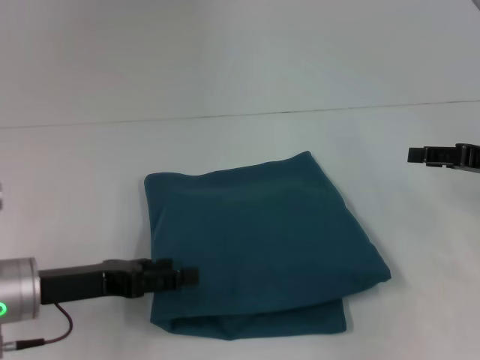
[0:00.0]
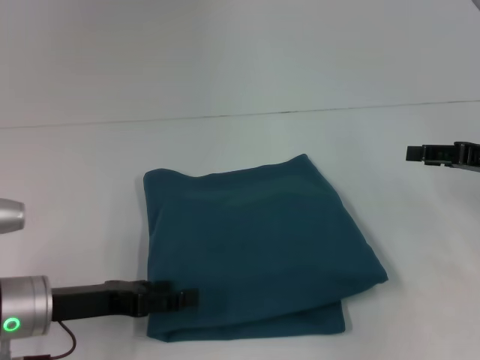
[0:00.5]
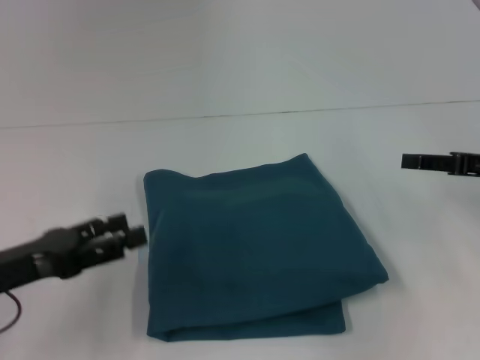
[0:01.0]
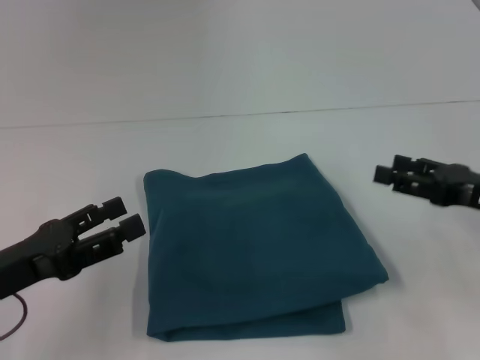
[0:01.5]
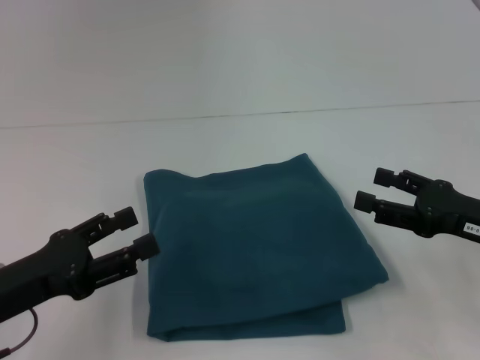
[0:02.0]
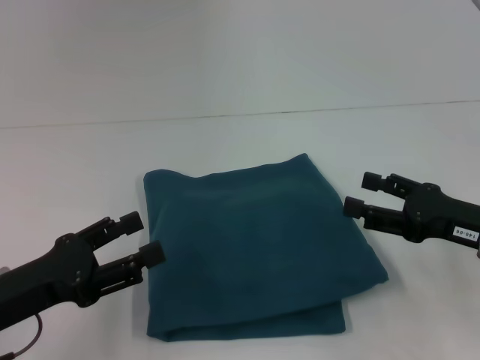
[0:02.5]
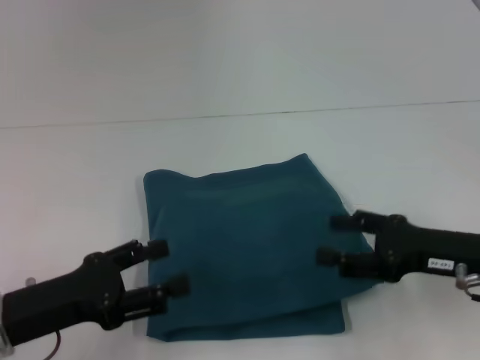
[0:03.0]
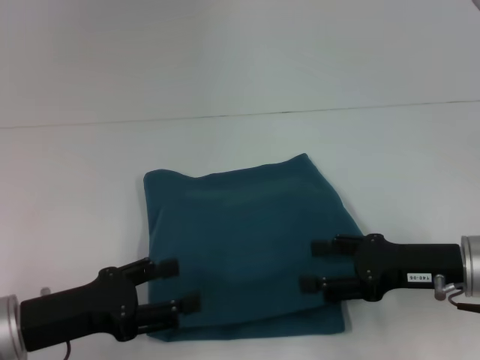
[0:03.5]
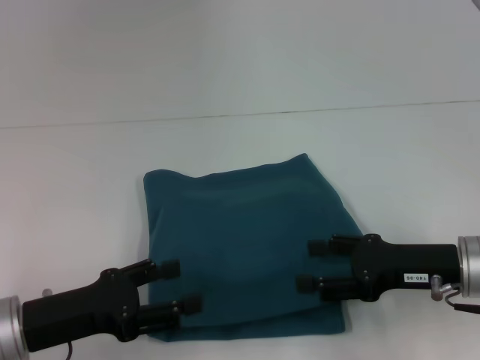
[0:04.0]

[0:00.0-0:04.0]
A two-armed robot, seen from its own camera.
0:00.0 to 0:02.0: The right gripper is displaced backward and to the left by some 10 cm. The left gripper changes place by roughly 5 cm.
0:02.0 to 0:04.0: The right gripper shifts about 5 cm to the left.

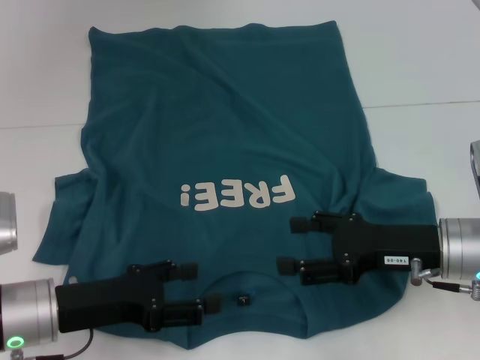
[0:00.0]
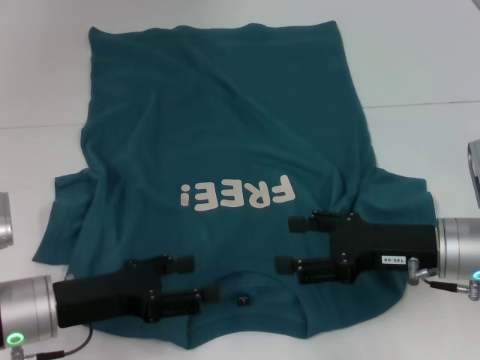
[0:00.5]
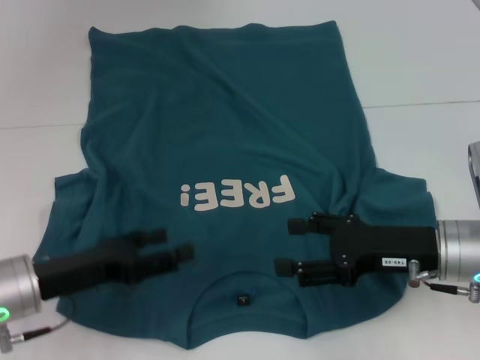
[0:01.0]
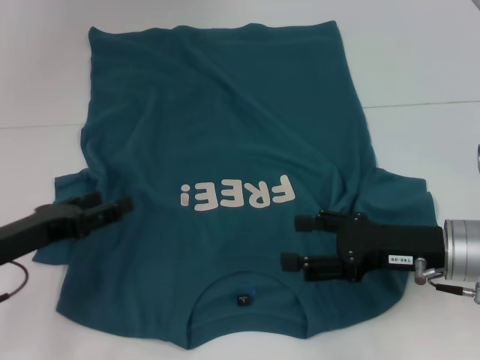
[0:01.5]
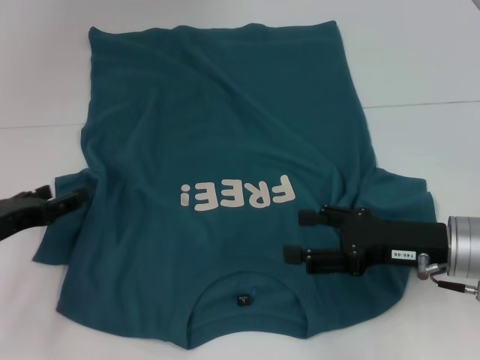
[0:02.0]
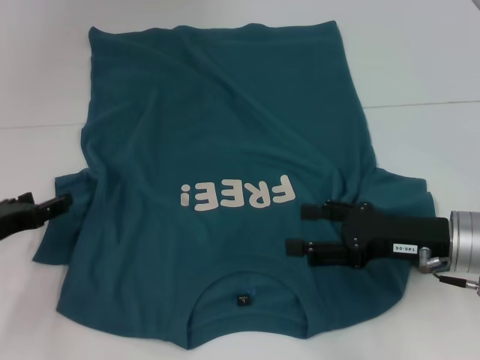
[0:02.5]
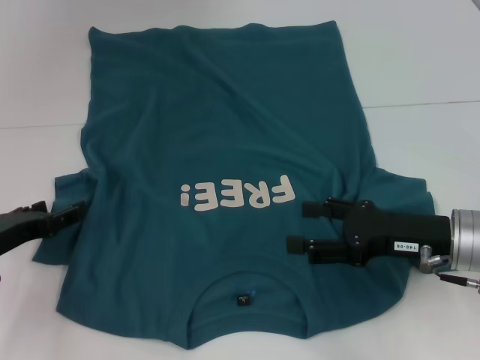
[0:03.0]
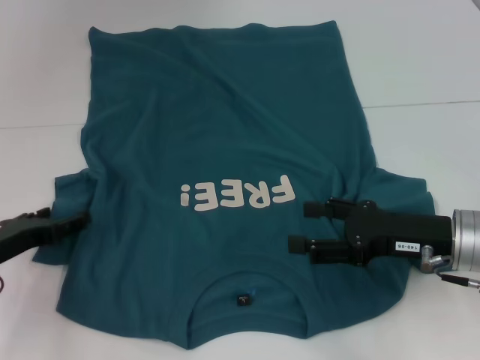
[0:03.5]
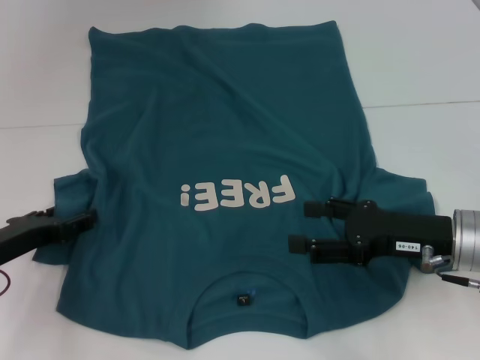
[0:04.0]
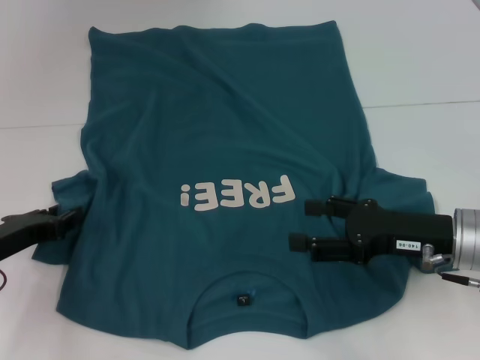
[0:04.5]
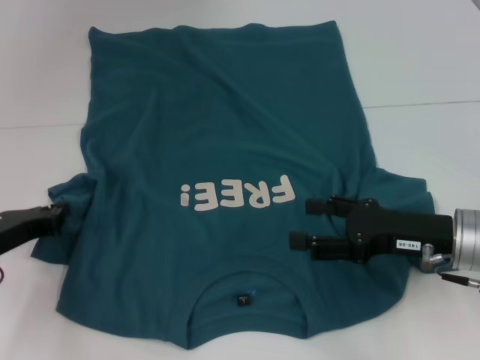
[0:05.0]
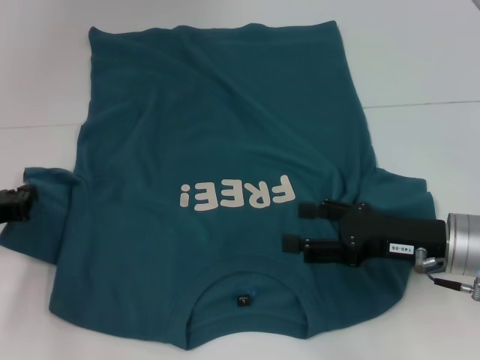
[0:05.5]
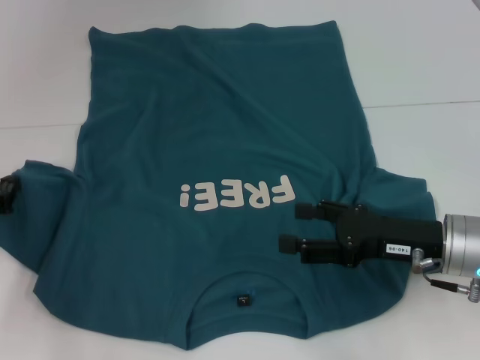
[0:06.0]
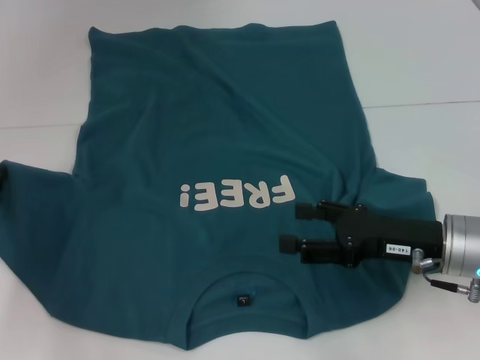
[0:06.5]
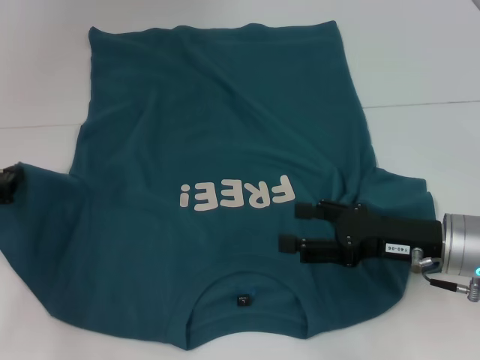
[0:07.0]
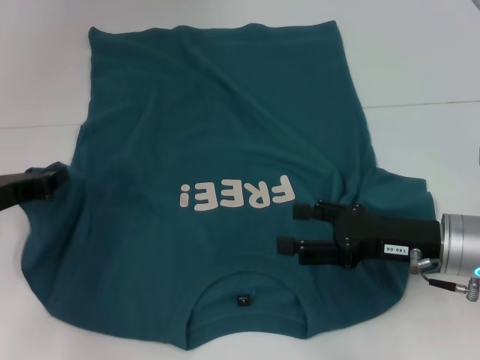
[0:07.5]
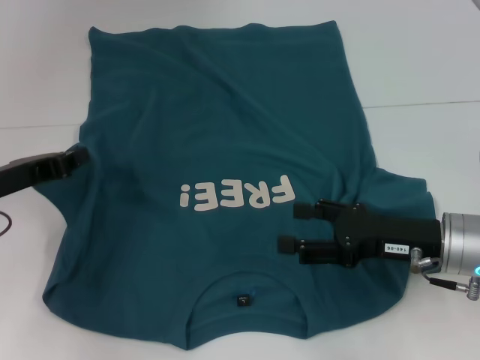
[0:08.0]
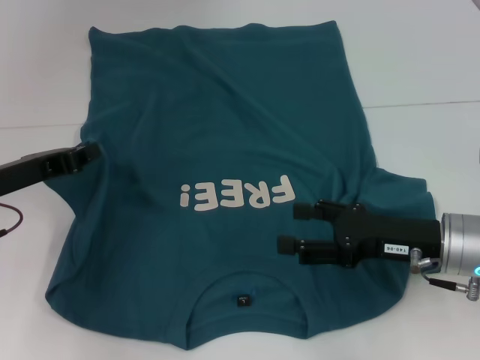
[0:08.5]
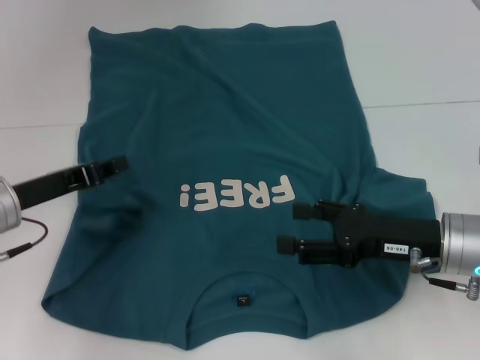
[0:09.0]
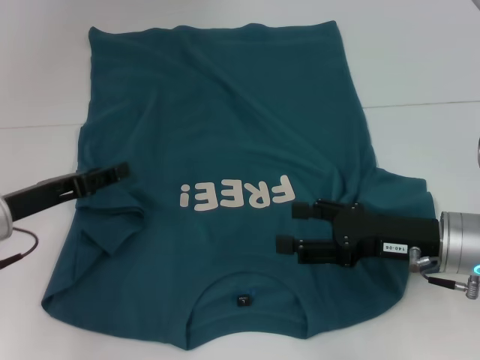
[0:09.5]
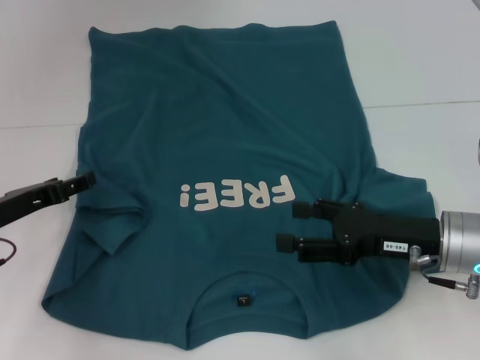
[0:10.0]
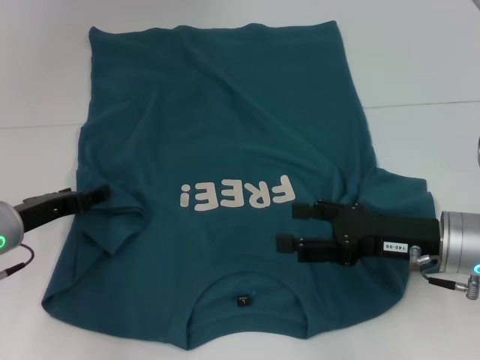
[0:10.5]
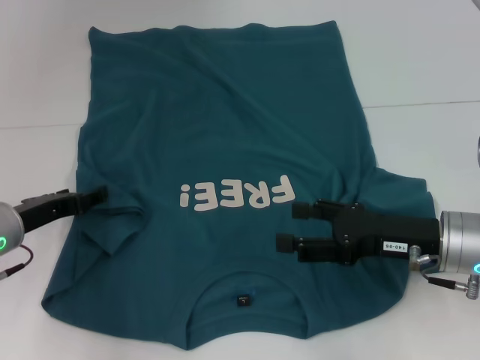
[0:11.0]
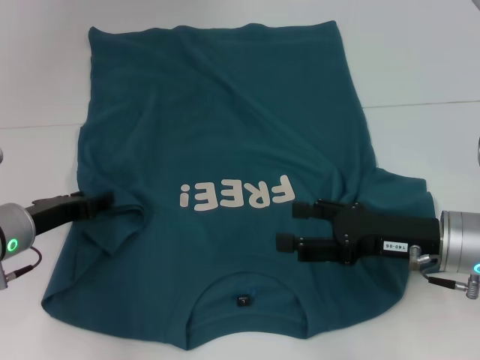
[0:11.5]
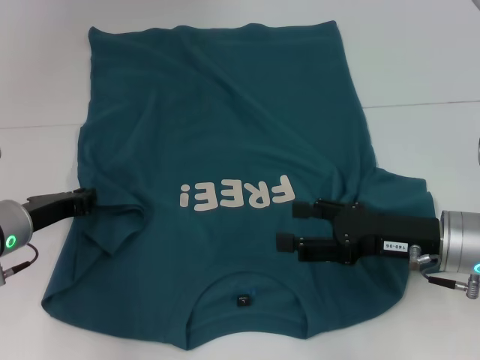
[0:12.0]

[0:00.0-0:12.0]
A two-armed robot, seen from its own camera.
0:00.0 to 0:02.0: The left gripper shifts approximately 10 cm to the left.
0:02.0 to 0:04.0: The grippers make only small movements.
0:04.0 to 0:06.0: The left gripper shifts by about 5 cm, and closes its fingers.
0:06.0 to 0:08.0: The left gripper shifts approximately 5 cm to the right.
0:08.0 to 0:10.0: The left gripper opens its fingers.
0:10.0 to 0:12.0: The left gripper closes its fingers.

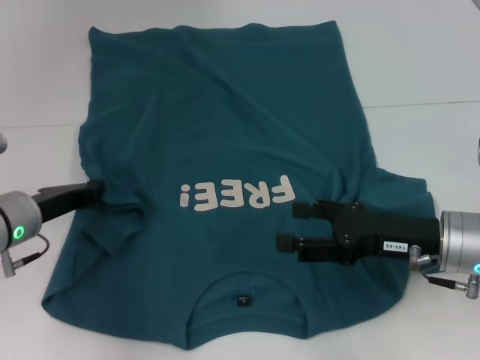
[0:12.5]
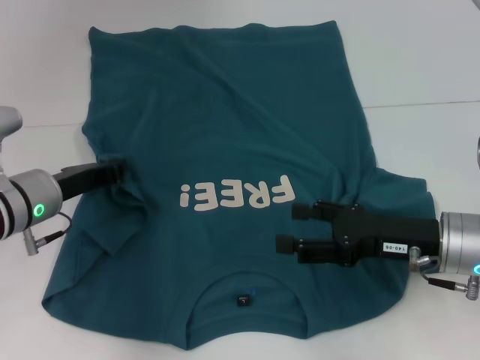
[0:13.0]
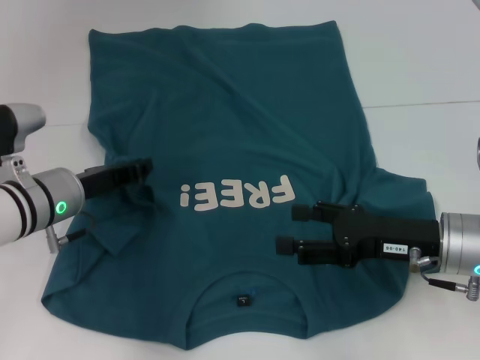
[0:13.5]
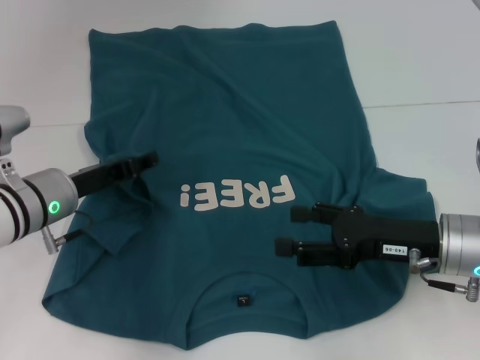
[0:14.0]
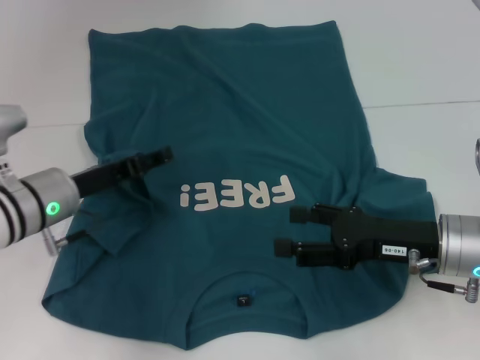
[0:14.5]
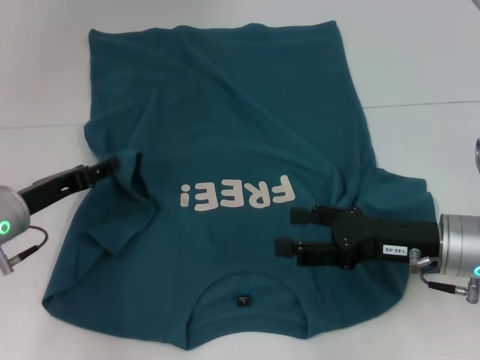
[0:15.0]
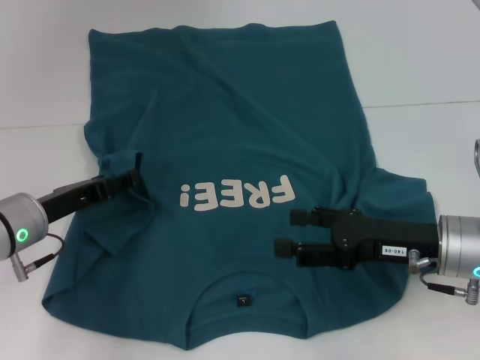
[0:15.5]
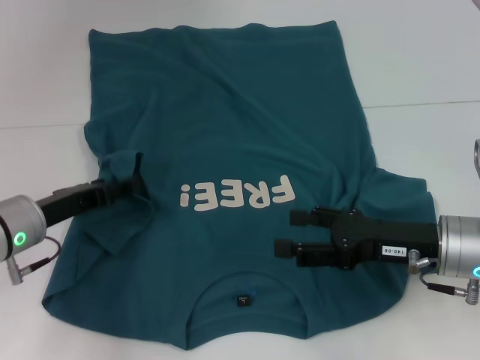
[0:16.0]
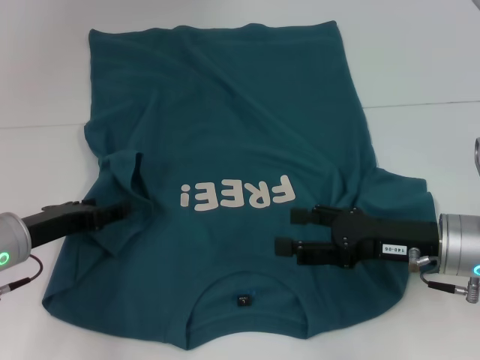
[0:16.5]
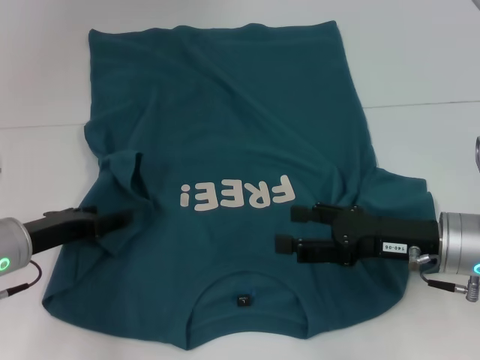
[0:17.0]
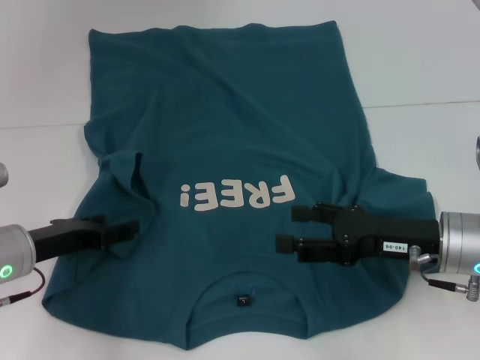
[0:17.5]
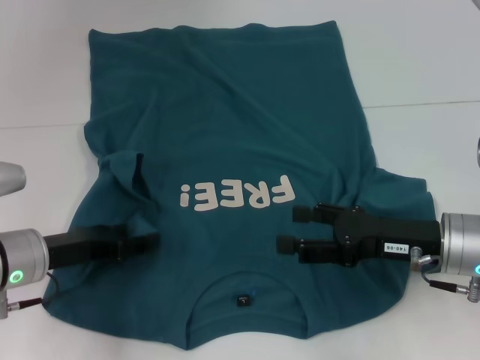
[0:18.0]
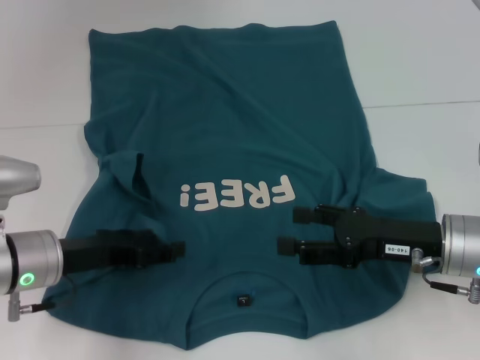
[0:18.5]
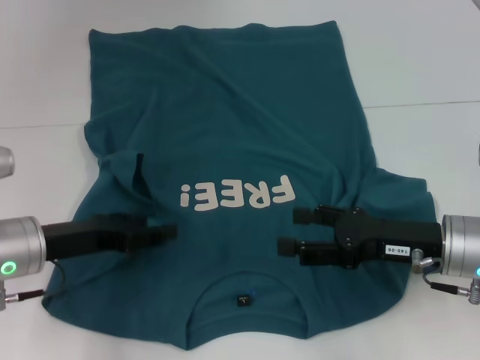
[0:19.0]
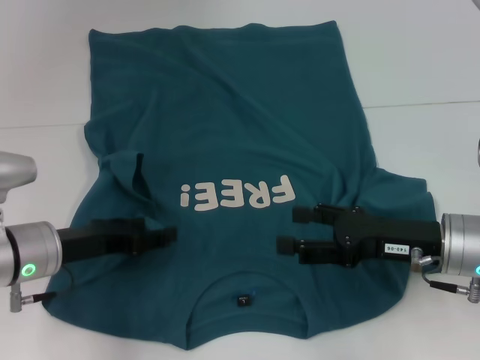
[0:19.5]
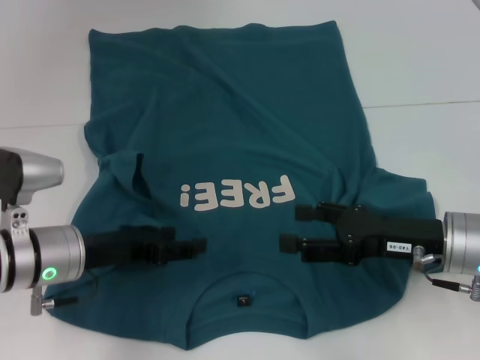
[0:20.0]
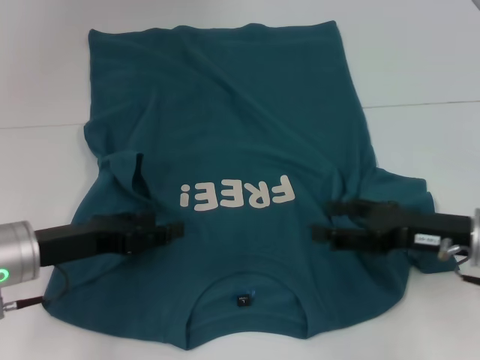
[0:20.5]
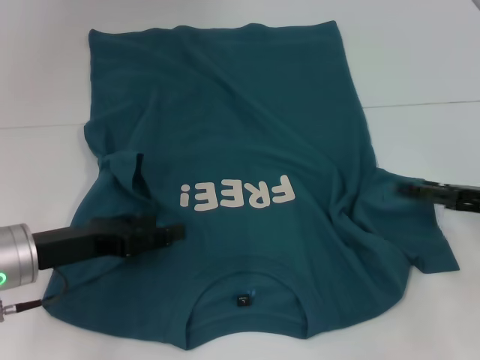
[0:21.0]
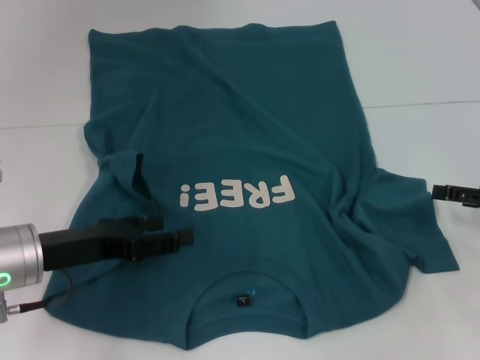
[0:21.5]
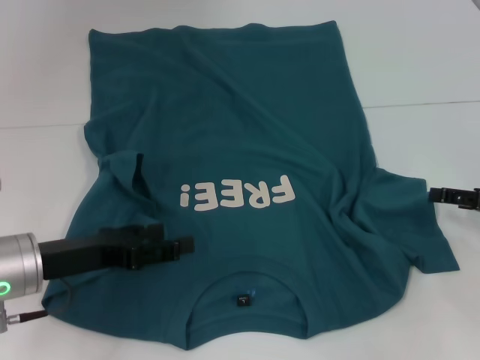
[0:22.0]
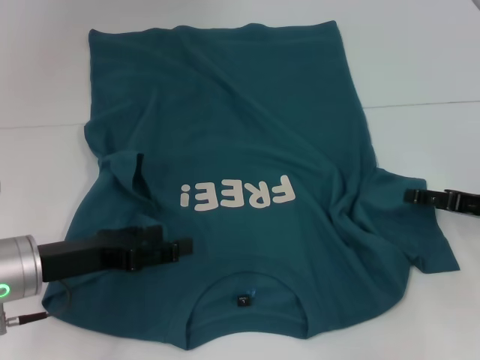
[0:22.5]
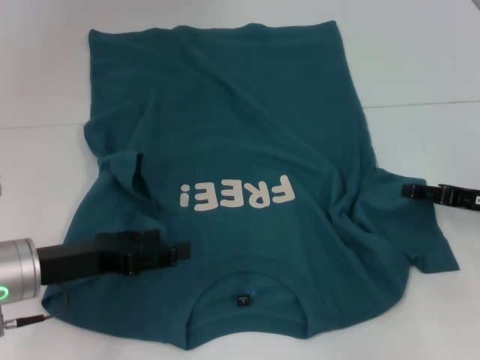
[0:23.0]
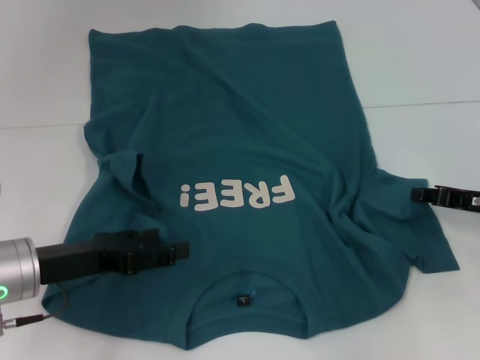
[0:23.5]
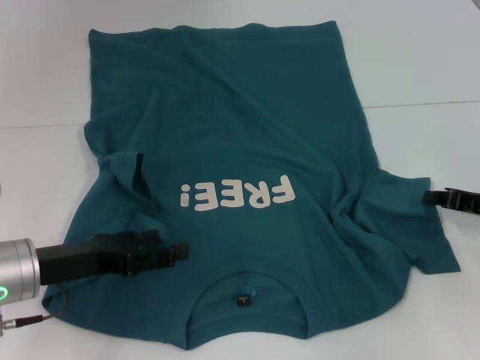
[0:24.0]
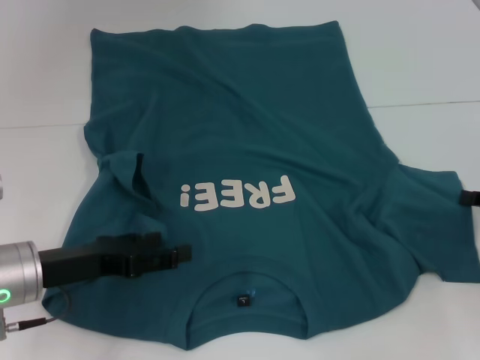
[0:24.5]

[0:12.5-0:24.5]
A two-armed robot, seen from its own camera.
Step, 0:12.5 to 0:20.5: Fold the bottom left sleeve with your left hand.
0:12.5 to 0:14.5: The left gripper opens up.
0:14.5 to 0:16.5: The left gripper moves approximately 5 cm.
0:16.5 to 0:18.5: There are only small adjustments of the grippers.
0:18.5 to 0:20.5: The grippers move only a little.
0:20.5 to 0:22.5: The right gripper heads to the right, covering approximately 10 cm.
0:22.5 to 0:24.5: The right gripper closes its fingers.
